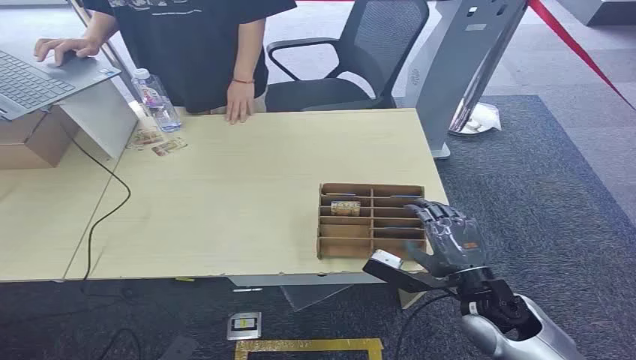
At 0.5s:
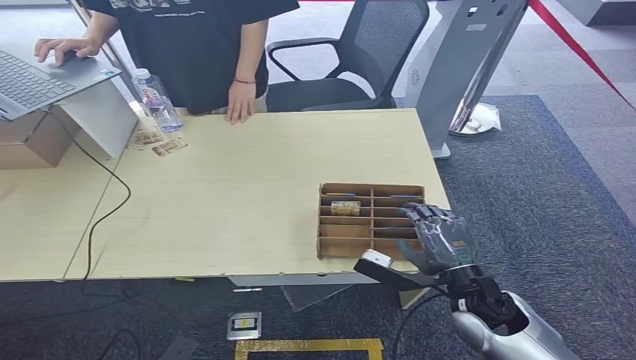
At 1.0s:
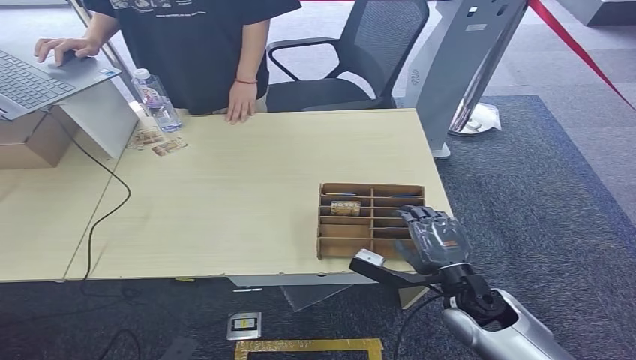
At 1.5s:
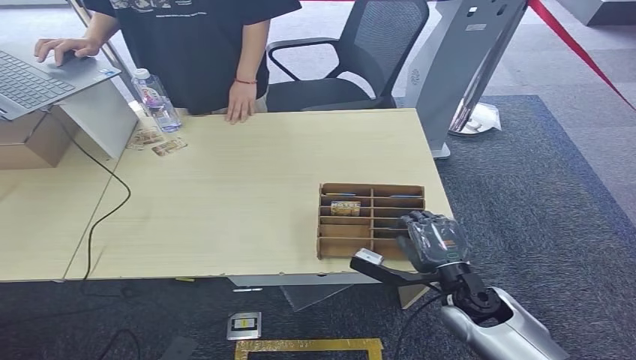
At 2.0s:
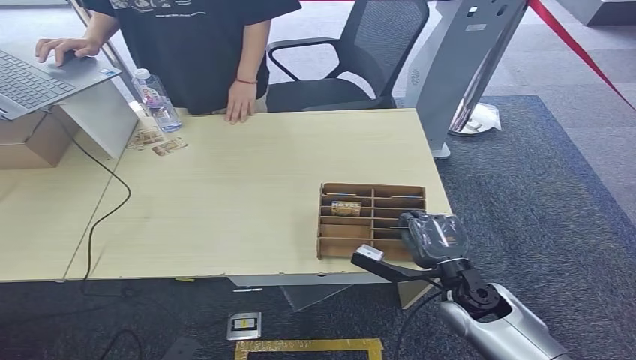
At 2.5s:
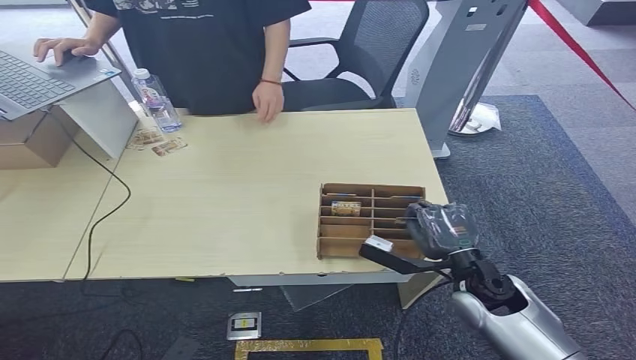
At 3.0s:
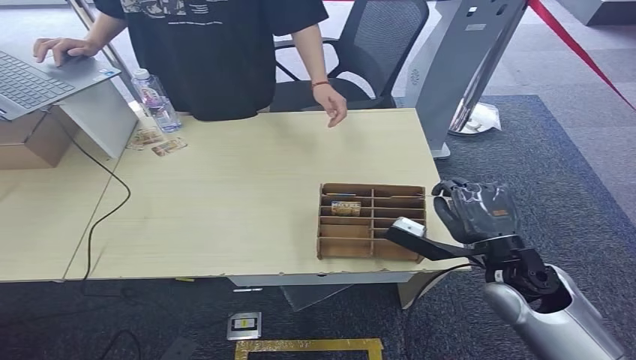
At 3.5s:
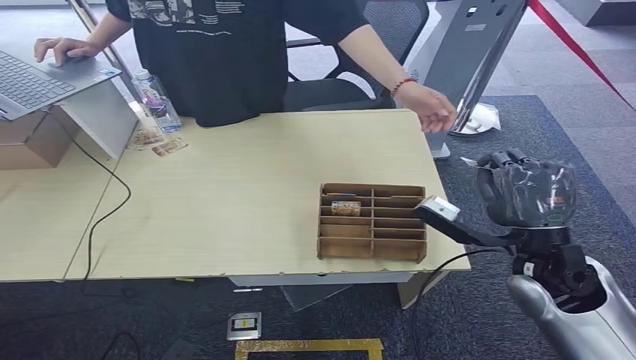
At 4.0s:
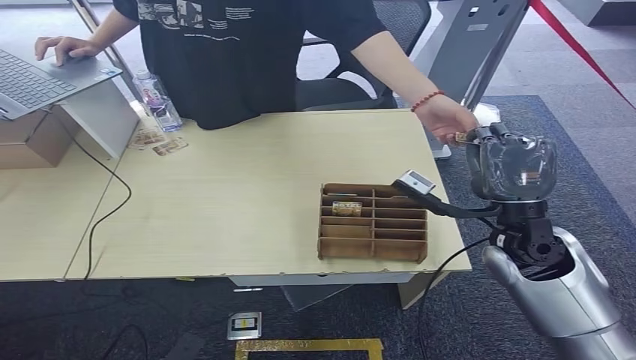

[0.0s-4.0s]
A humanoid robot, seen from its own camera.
Step, 0.0s to 2.5s: Pick up the key card from the card box.
Step, 3.0s to 4.0s: Hand the key card to the target.
